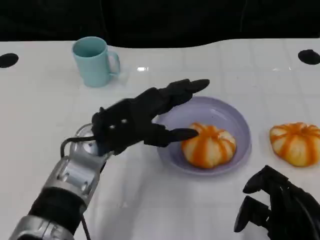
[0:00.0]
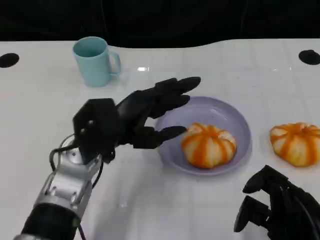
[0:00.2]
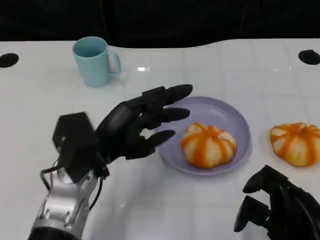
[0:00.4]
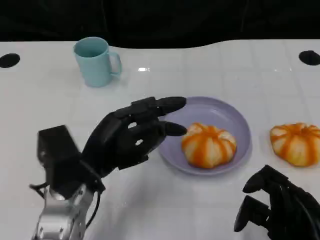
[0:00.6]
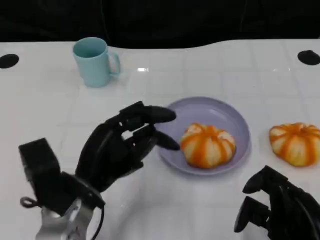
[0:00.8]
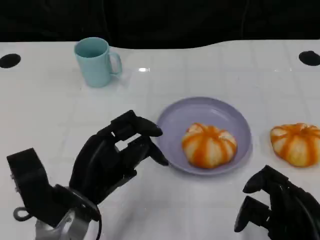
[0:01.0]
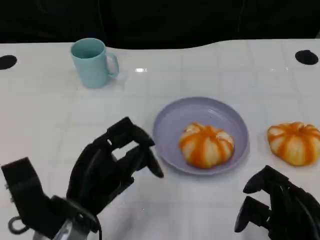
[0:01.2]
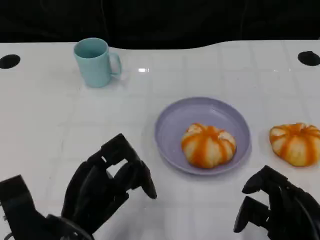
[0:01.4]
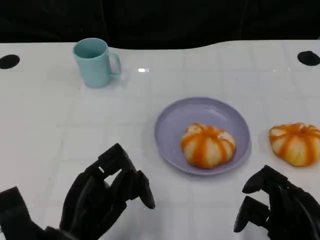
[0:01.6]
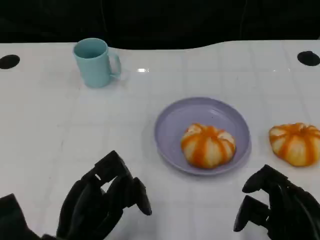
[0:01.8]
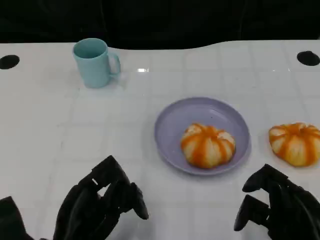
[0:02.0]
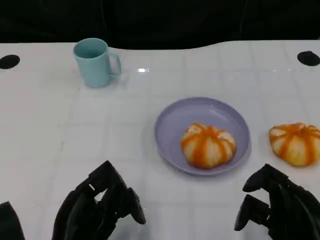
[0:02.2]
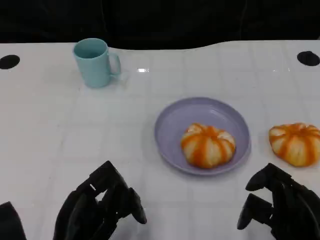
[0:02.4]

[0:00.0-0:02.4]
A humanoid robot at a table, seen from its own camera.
Task of the whole recording: Grasp the bread from the table and place it into the plate.
0:00.0 to 0:01.2: The left hand travels backward and downward by approximately 10 cm.
0:01.2 to 0:02.4: The left hand ends up approximately 5 cm from where it was.

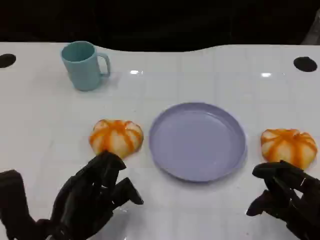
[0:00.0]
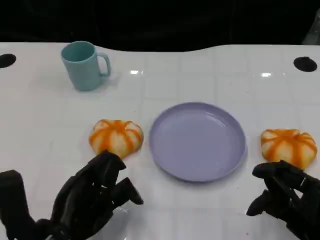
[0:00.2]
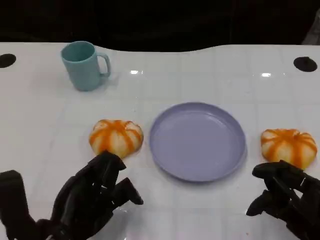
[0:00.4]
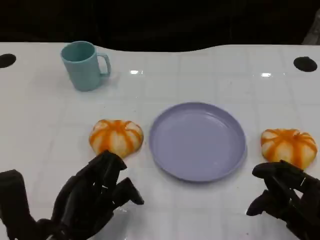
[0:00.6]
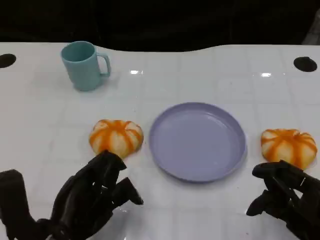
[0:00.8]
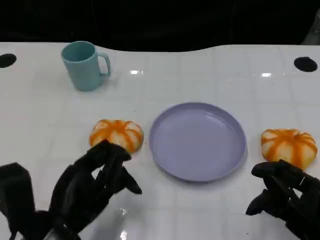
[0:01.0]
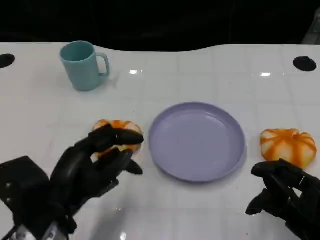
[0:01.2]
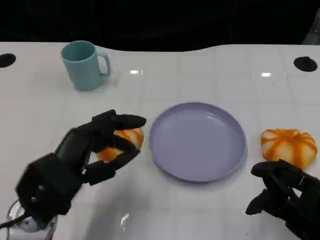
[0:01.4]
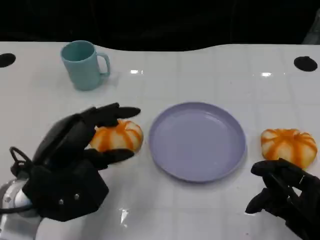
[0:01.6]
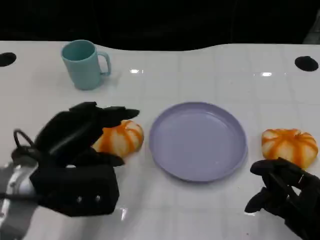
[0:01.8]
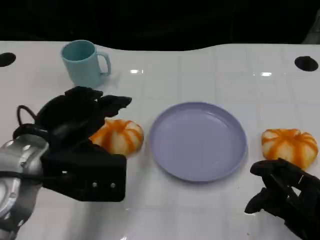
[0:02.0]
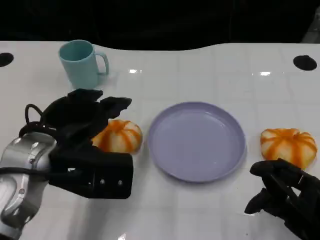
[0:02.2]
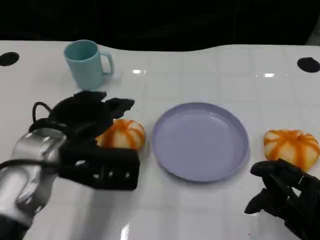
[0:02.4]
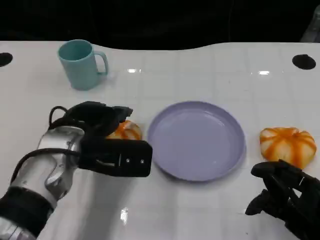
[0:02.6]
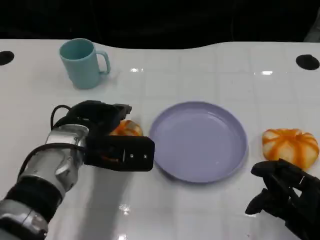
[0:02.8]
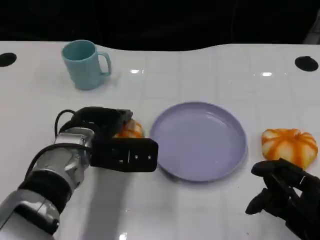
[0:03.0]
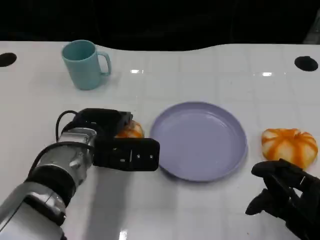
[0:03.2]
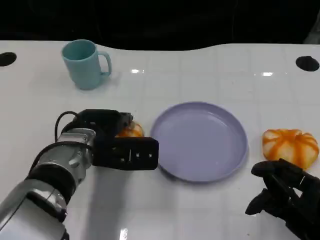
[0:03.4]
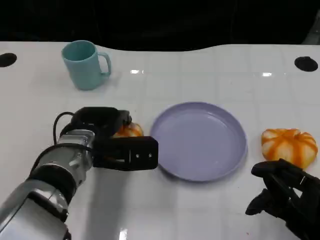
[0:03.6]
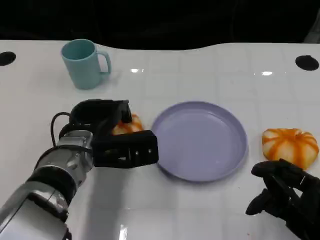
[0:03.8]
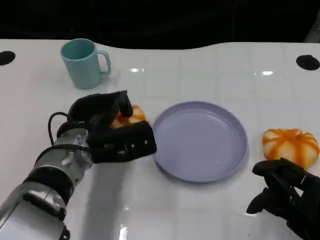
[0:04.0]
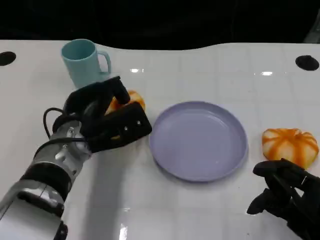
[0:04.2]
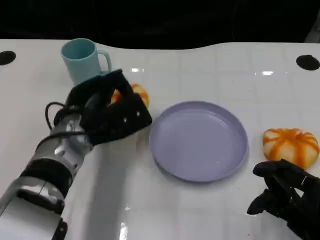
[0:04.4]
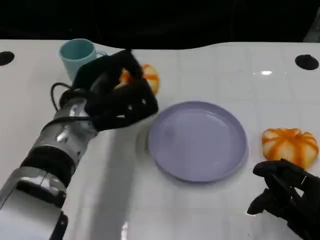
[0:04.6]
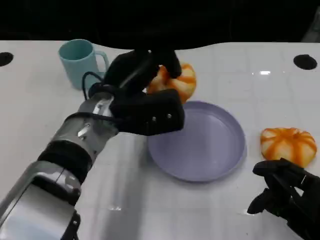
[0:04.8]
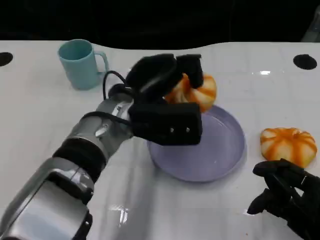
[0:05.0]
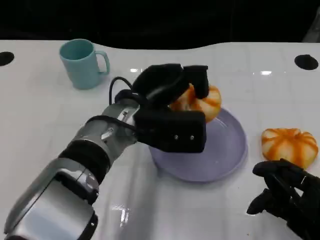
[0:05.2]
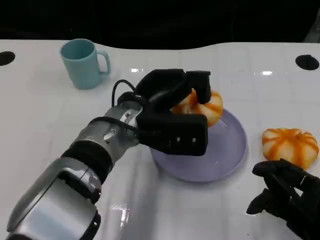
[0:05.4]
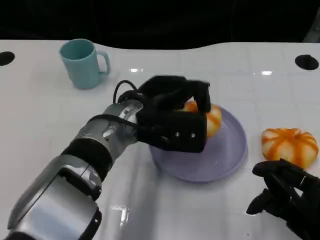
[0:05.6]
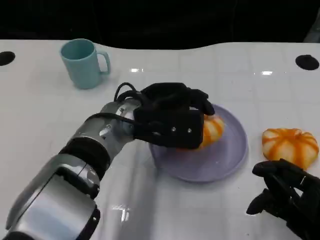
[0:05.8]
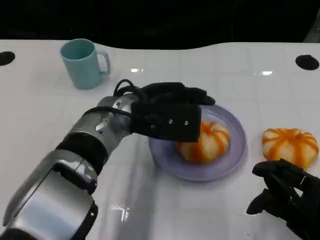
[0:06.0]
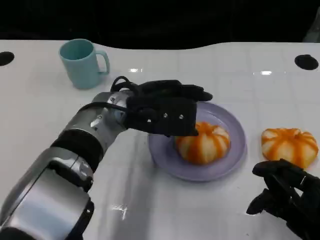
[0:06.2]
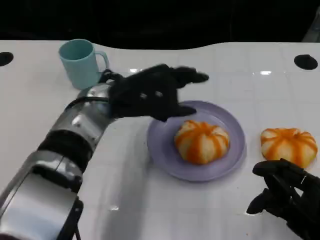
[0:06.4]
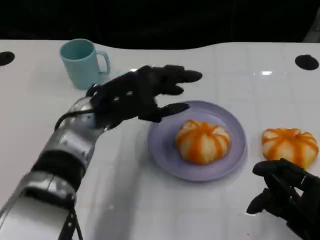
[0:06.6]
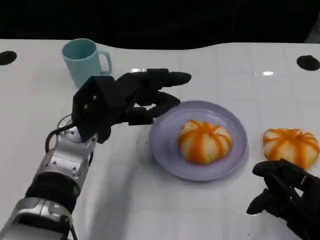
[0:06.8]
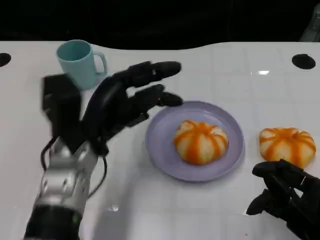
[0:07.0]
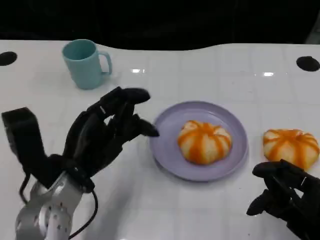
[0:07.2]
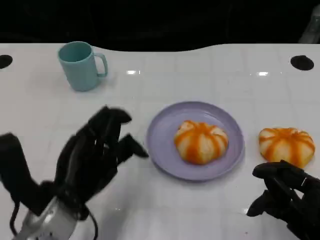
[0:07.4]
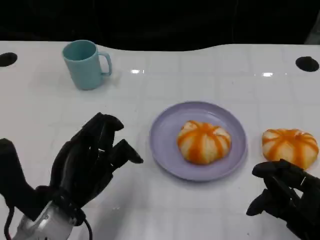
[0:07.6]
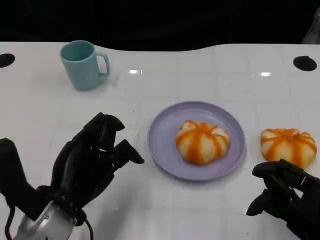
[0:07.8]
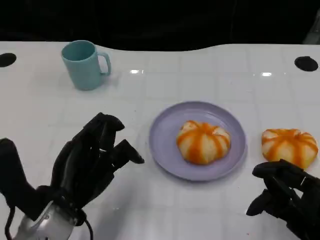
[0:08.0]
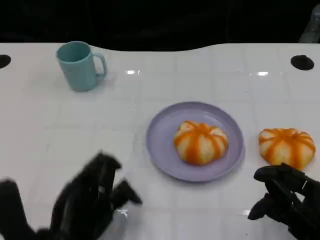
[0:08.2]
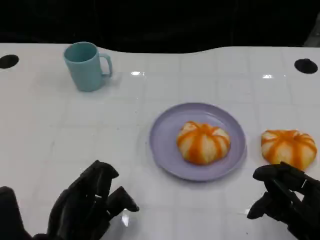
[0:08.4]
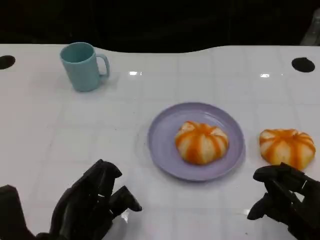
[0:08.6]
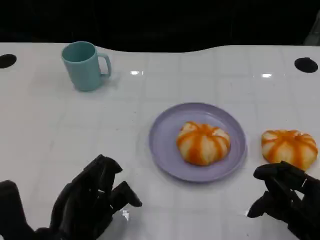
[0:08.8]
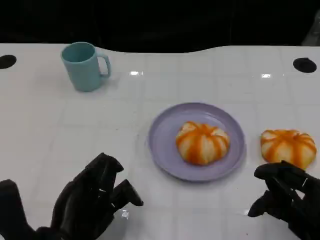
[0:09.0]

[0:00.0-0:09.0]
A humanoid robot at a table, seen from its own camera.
Task of the whole recording: Grasp the bread from the table and place it into the plate.
0:00.0 to 0:01.6: The left hand shifts about 10 cm upward and forward.
0:01.6 to 0:03.0: The left hand is displaced forward and to the right by about 10 cm.
0:04.4 to 0:06.0: The left hand heads to the right, covering about 5 cm.
0:06.0 to 0:07.6: The left hand is displaced backward, to the left and downward by approximately 15 cm.
0:07.6 to 0:09.0: The left hand ends up about 5 cm from where it was.

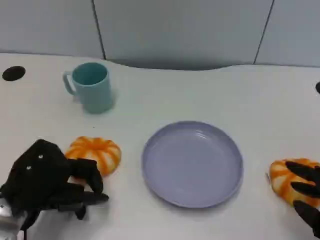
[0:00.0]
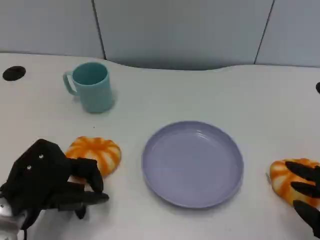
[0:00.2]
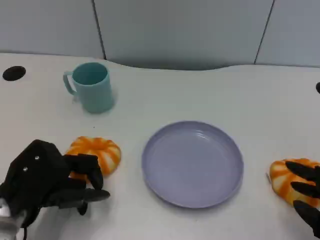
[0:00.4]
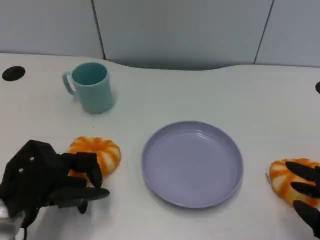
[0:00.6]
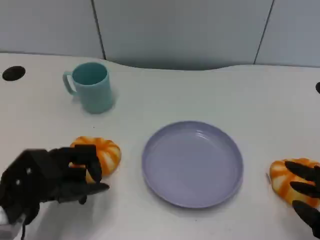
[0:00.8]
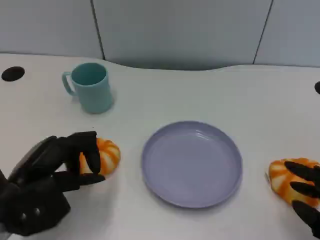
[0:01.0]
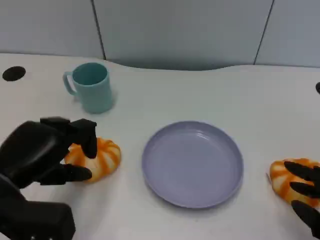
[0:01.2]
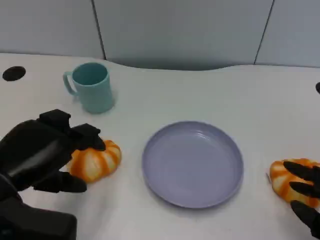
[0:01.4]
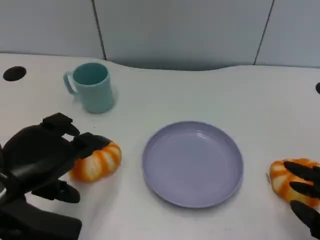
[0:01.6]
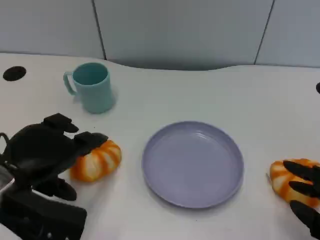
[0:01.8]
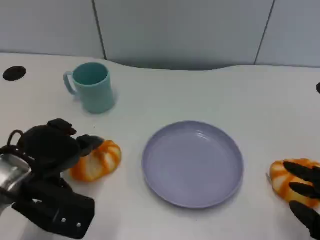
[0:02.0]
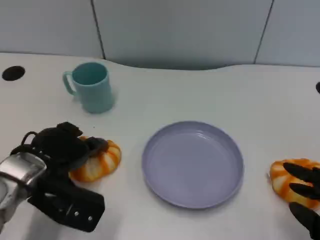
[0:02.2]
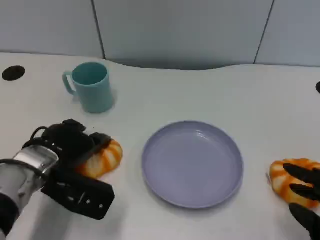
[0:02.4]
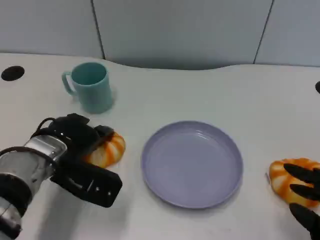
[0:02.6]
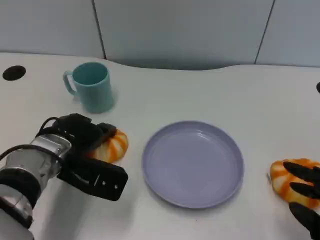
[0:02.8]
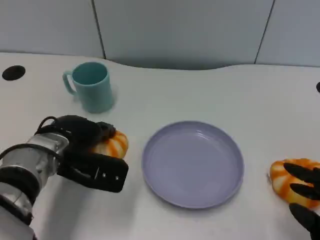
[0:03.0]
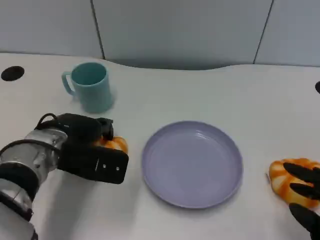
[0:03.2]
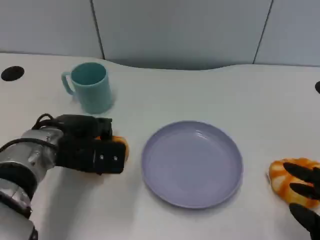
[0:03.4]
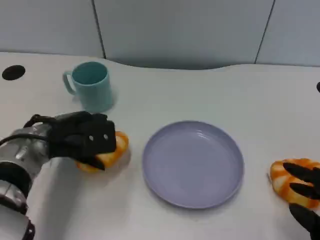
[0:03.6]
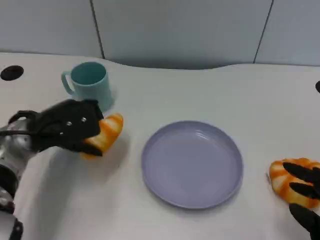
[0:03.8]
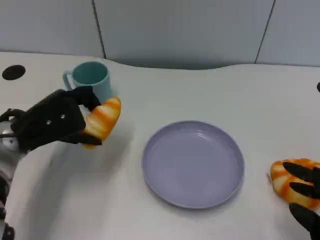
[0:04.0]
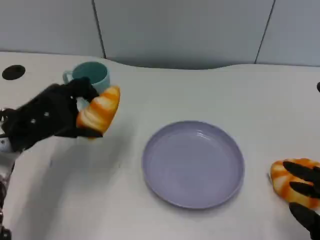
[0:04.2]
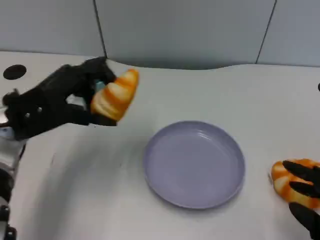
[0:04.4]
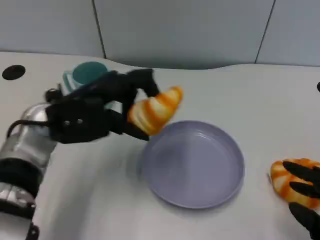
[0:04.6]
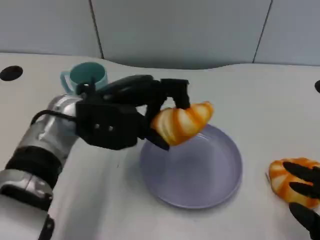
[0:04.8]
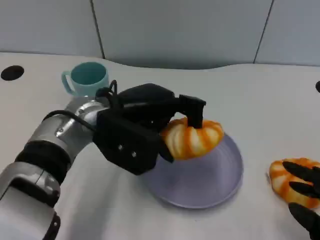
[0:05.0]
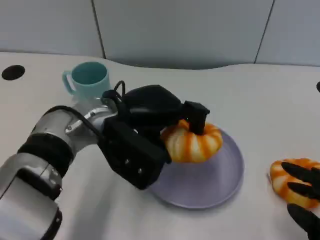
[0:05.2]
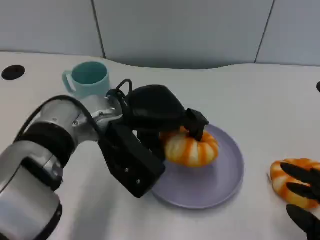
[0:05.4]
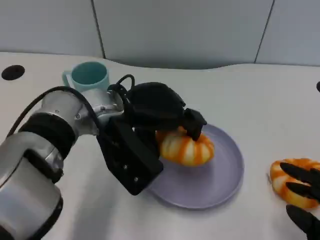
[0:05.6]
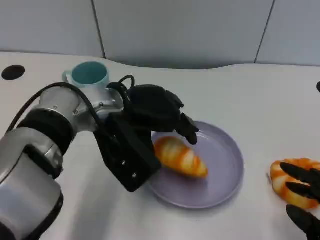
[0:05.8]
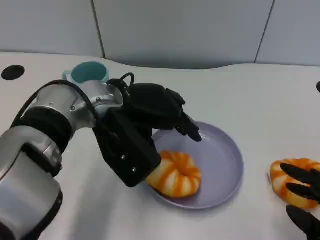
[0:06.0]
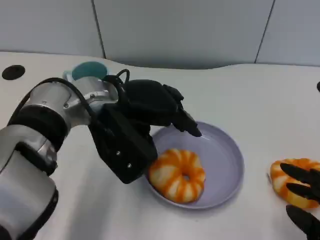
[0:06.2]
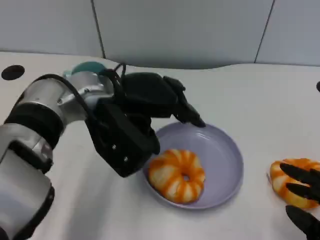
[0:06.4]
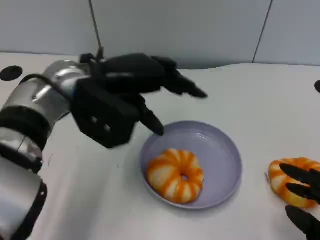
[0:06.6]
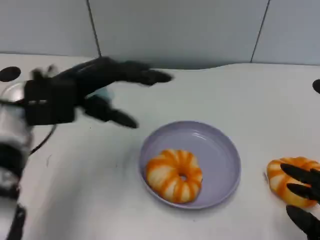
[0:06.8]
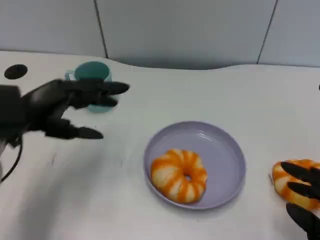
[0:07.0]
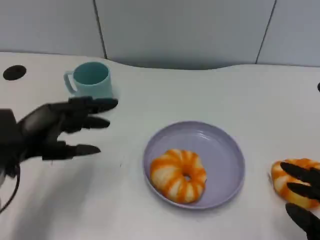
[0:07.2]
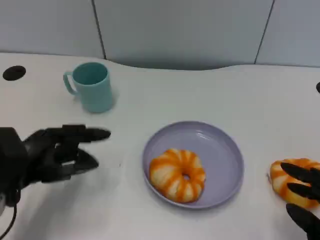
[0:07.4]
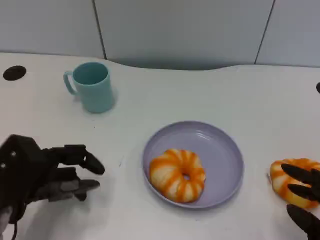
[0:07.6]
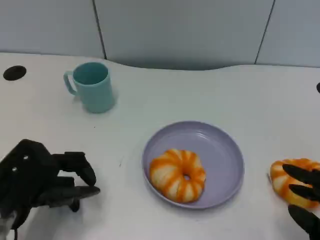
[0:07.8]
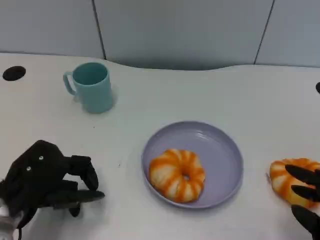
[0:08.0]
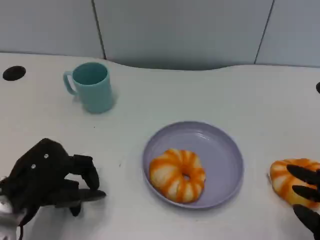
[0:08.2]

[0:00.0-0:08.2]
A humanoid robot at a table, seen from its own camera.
Task of the whole recording: Grasp the bread from the table and place it into the plate.
0:00.0 to 0:01.6: The left hand shifts roughly 5 cm upward.
0:01.6 to 0:03.2: The left hand goes some 10 cm forward and to the right.
0:03.2 to 0:05.0: The left hand shifts approximately 10 cm to the right and upward.
0:05.0 to 0:06.6: The left hand moves roughly 5 cm.
0:06.6 to 0:08.2: The left hand is displaced downward, backward and to the left by approximately 20 cm.
